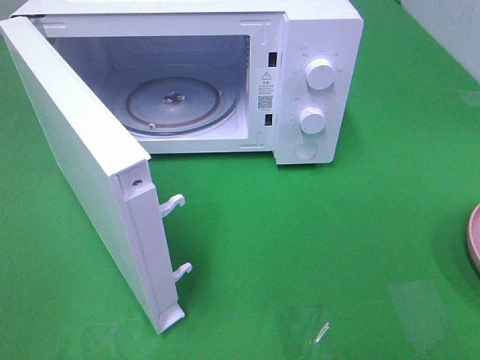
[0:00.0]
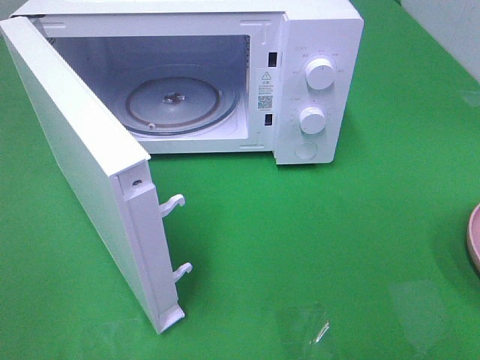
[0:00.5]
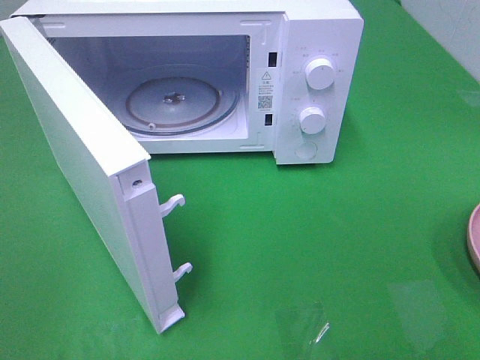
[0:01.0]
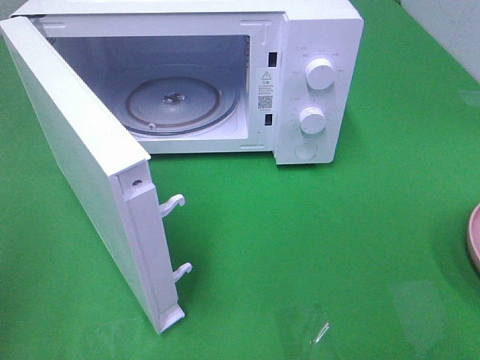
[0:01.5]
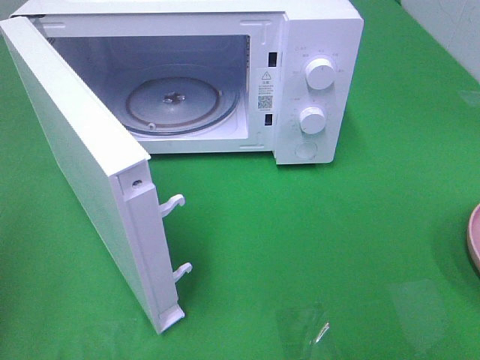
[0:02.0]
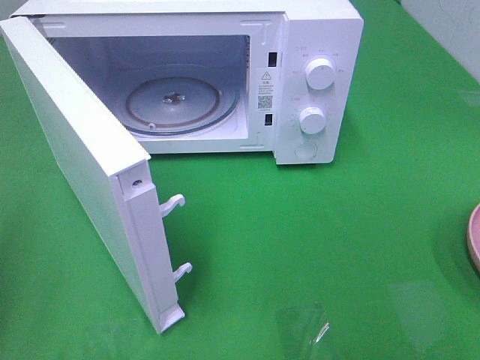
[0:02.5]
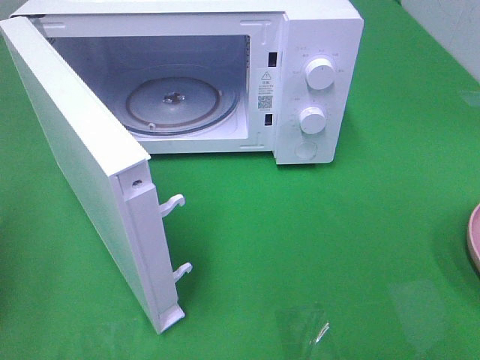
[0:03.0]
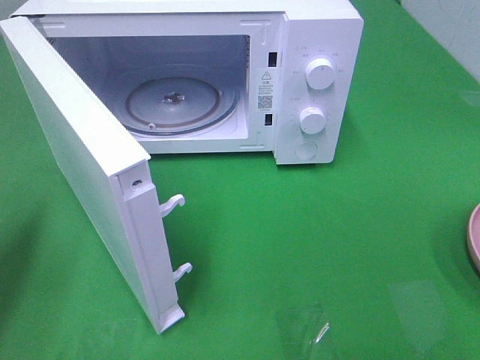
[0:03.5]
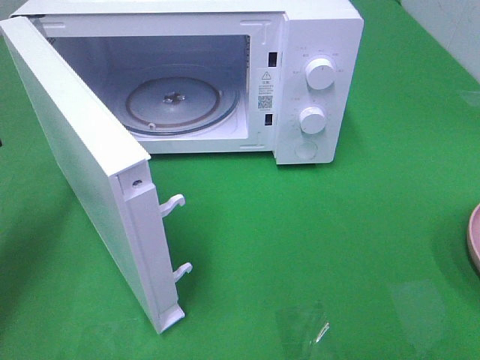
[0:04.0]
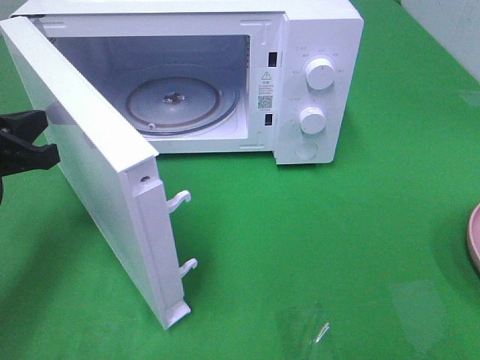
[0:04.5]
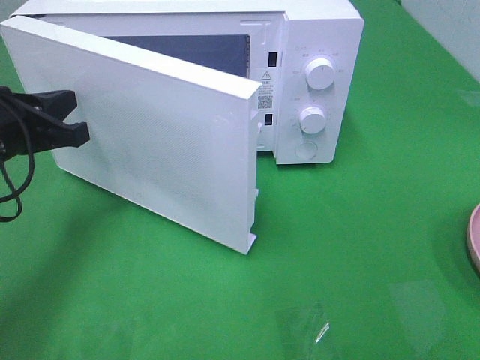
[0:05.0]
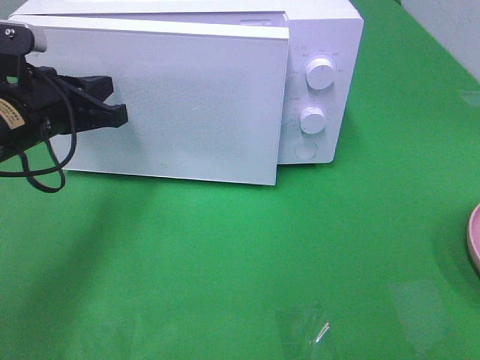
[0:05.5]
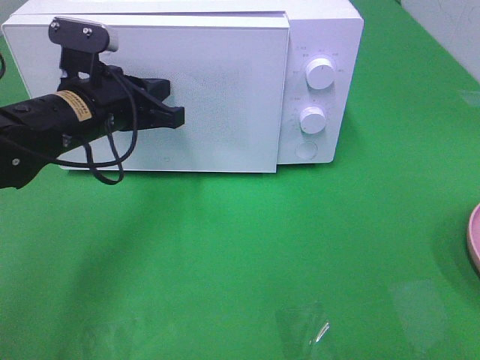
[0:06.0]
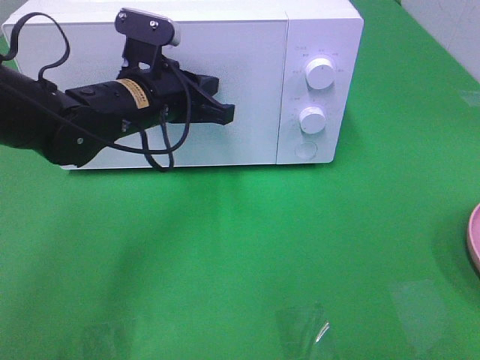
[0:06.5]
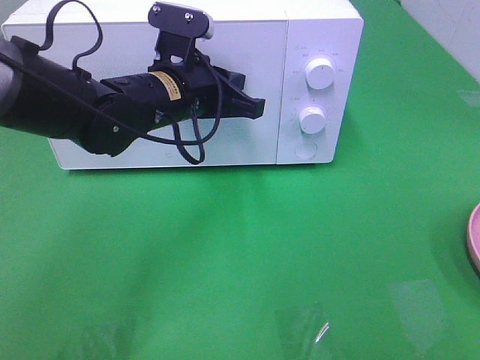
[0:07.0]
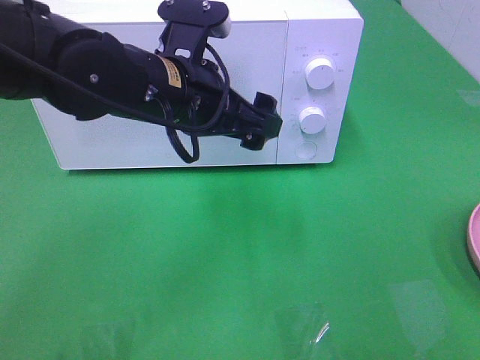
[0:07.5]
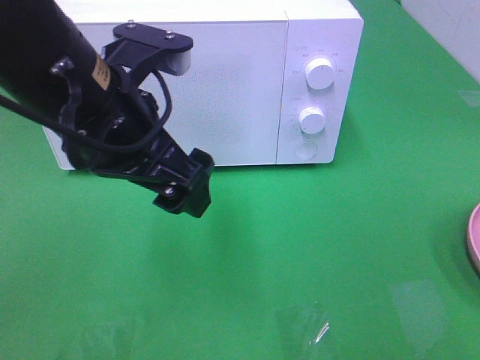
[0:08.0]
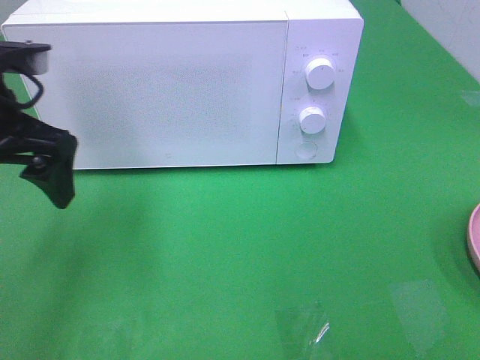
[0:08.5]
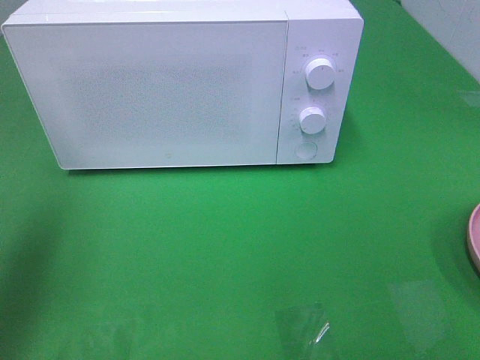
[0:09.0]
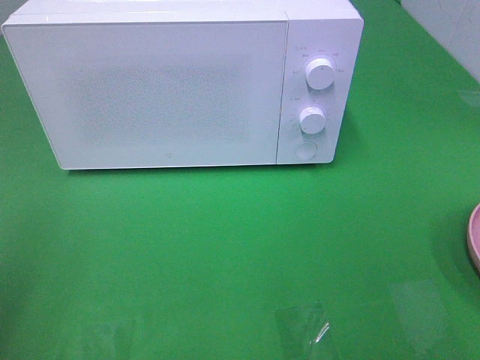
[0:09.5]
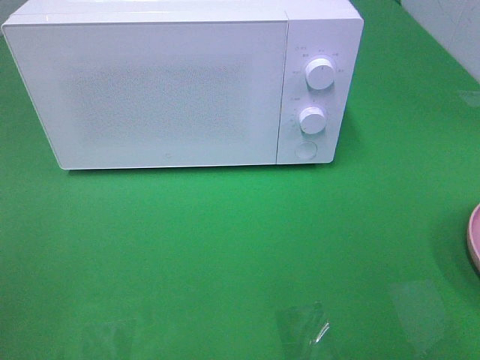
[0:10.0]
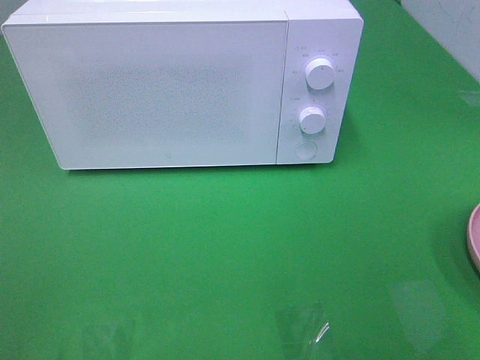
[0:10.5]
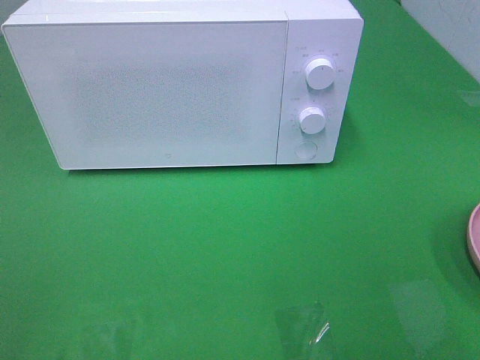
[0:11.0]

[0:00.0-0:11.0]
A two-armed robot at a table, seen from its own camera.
Task of the whole recording: Heat the burger.
Step, 0:00.0 to 0:07.0: Left hand: close the microwave door.
0:02.0 to 0:03.5: The left gripper shifts roughly 10 cm forward and downward.
0:03.5 to 0:05.5: The left gripper goes about 15 cm to the right and forward.
0:05.5 to 0:07.5: The left gripper is displaced to the right by approximately 15 cm, and opens.
0:07.5 to 0:09.0: The left gripper moves to the left, about 25 cm.
0:09.0 to 0:11.0: The left gripper shifts approximately 20 cm backward.

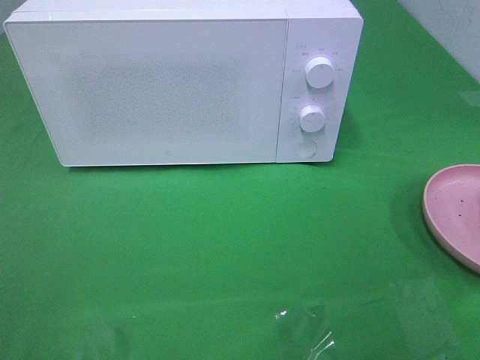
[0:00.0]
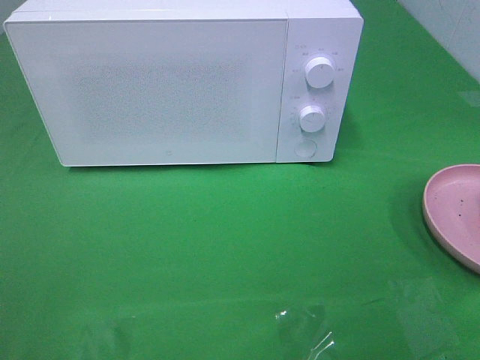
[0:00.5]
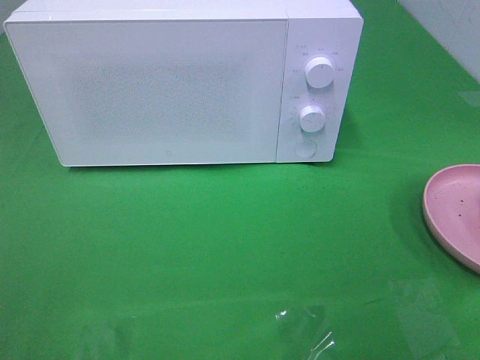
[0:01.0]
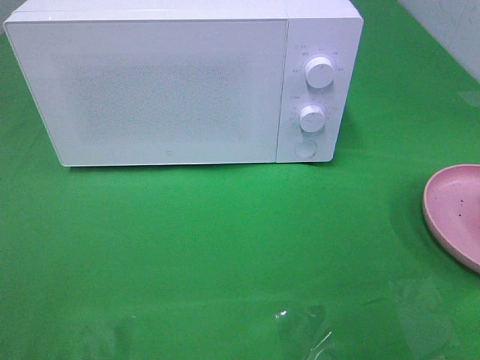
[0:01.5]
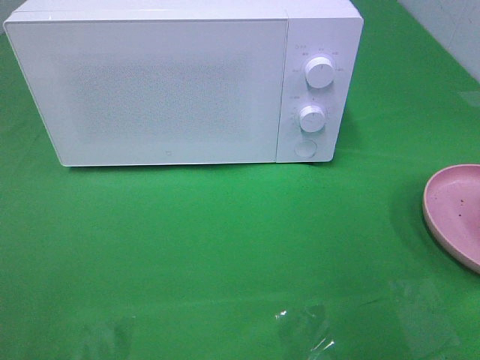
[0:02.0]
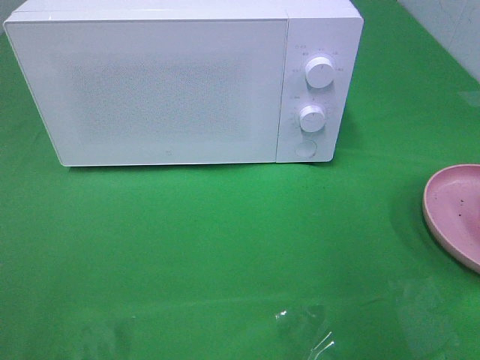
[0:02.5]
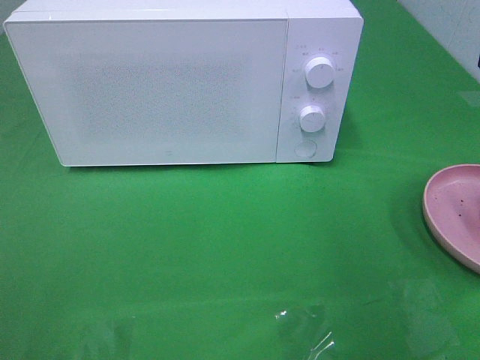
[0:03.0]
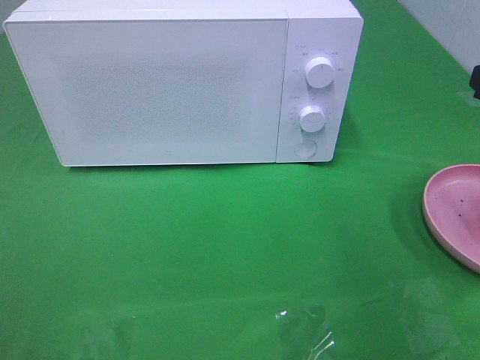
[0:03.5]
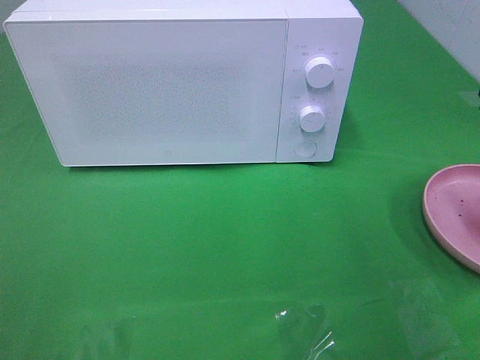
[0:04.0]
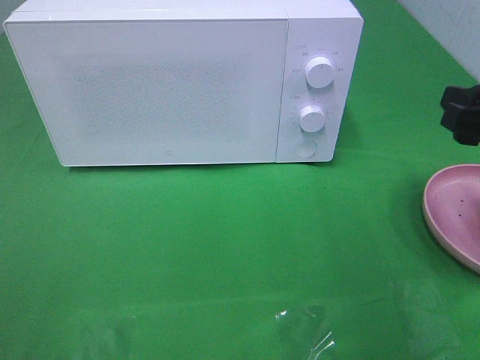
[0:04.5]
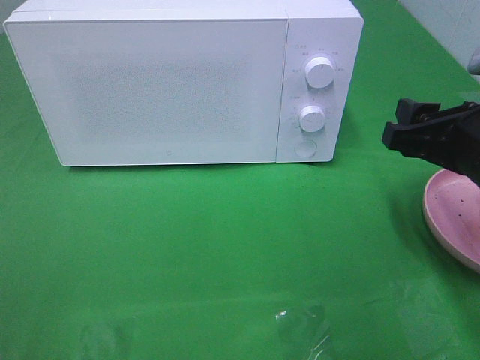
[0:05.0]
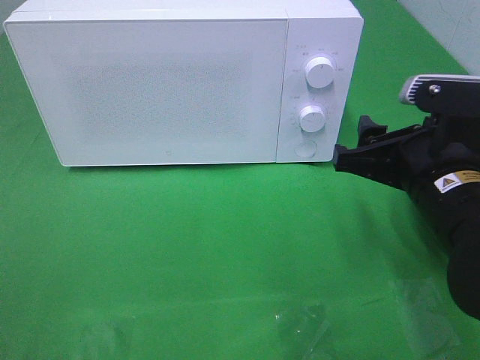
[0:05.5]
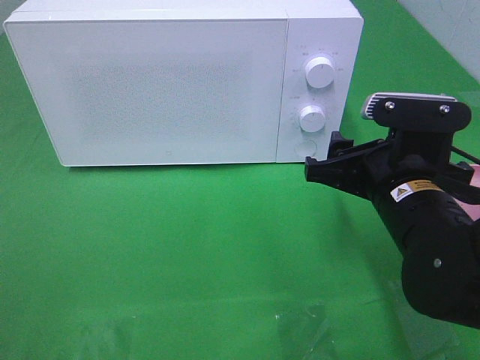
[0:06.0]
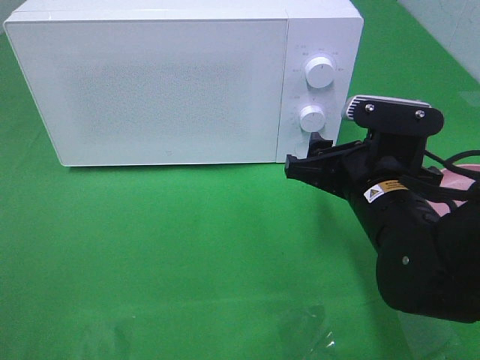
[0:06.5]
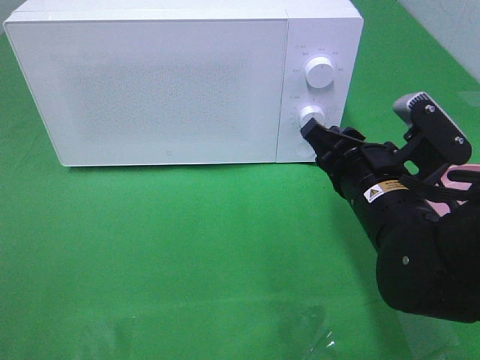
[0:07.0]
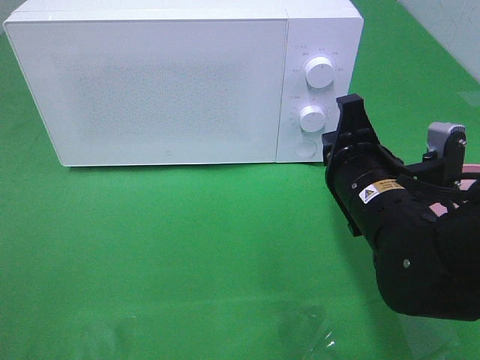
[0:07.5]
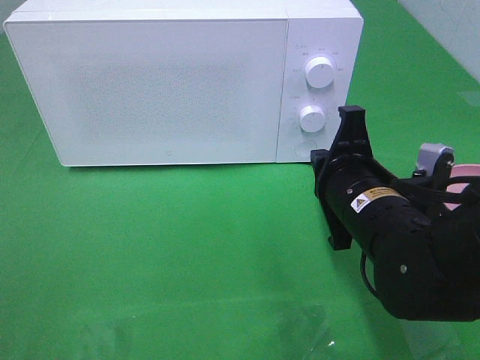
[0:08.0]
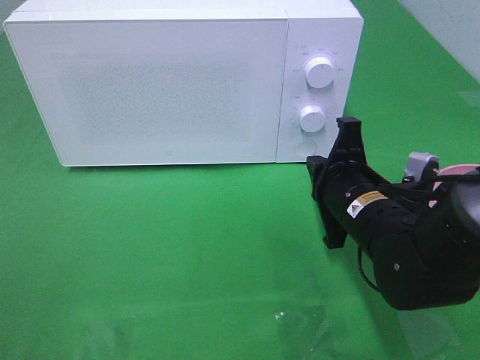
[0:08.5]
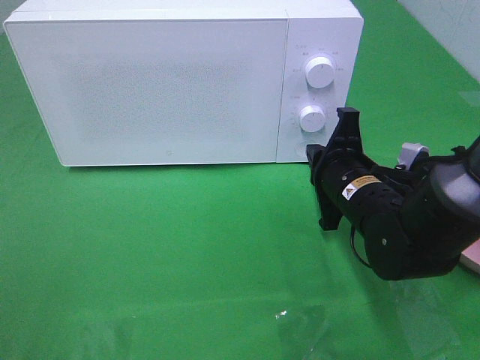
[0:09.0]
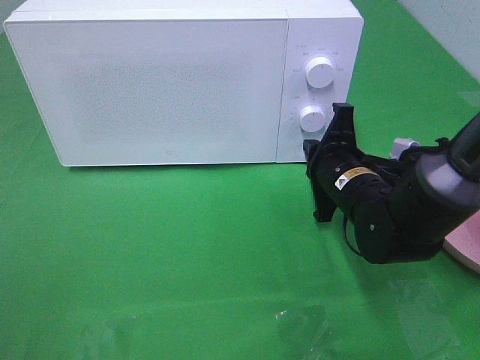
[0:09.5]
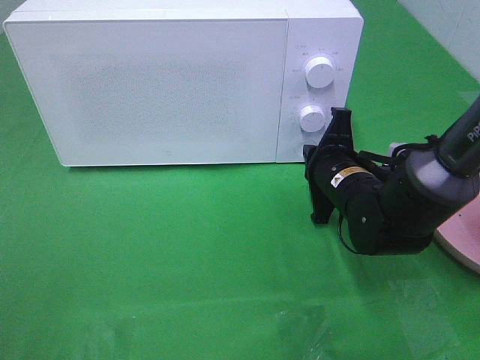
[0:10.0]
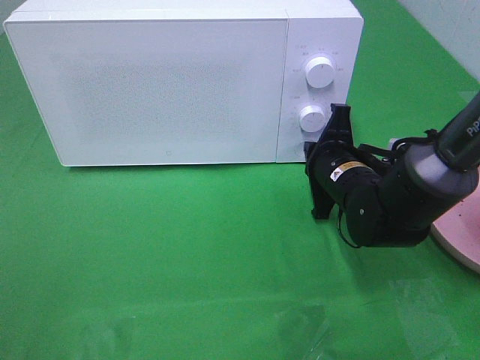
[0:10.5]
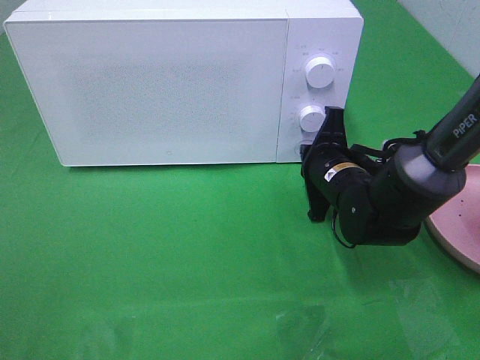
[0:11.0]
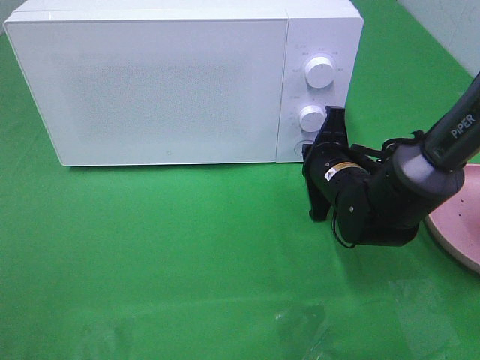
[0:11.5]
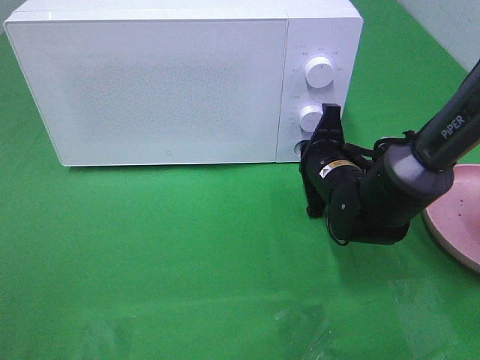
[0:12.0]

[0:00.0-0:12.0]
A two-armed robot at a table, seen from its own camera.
Task of the whole recording: Heat the burger.
0:04.0 to 0:06.0: The right gripper goes some 15 cm to the left and downward.
0:06.0 to 0:08.0: The right gripper closes its fingers.
0:08.0 to 0:10.0: The right gripper heads forward and downward, covering some 10 cm.
0:10.0 to 0:12.0: The grippers stay close to where they were, moving slightly.

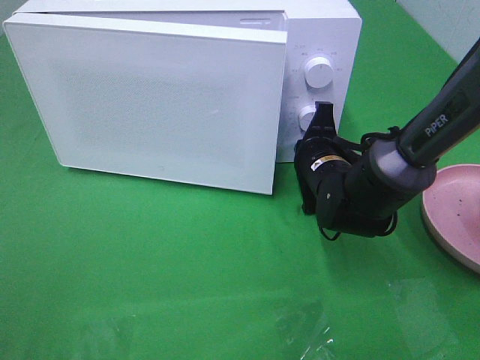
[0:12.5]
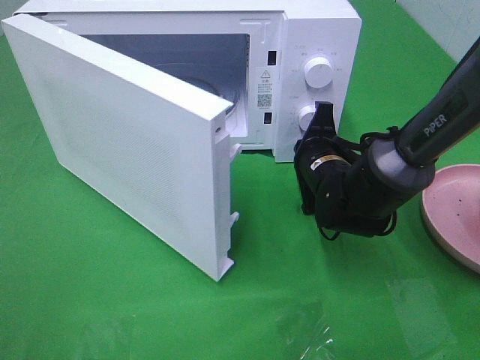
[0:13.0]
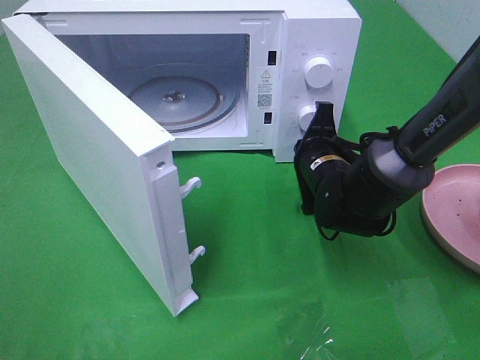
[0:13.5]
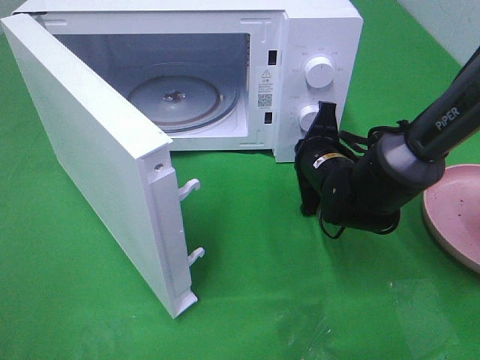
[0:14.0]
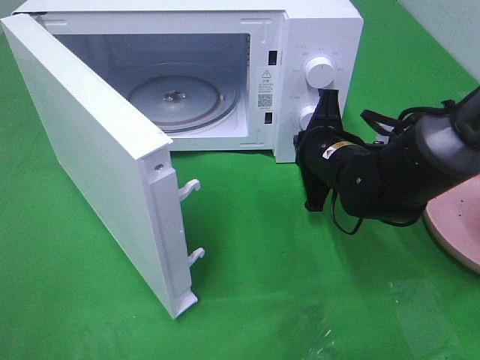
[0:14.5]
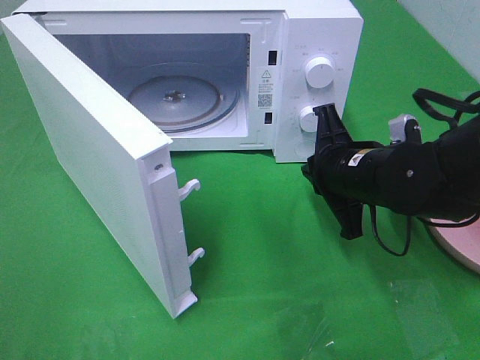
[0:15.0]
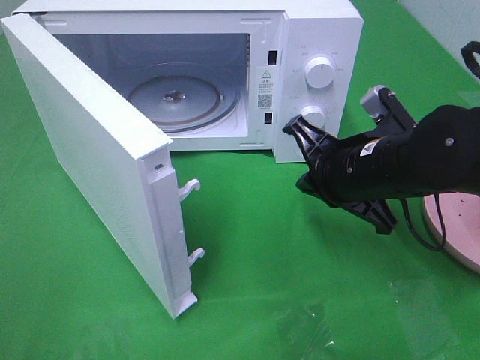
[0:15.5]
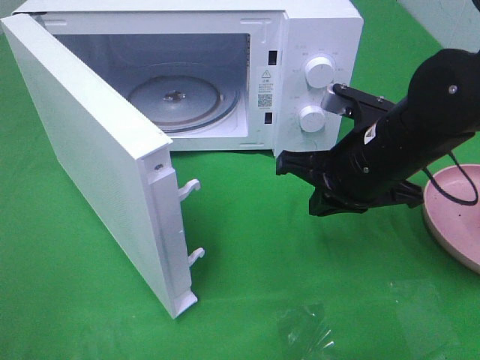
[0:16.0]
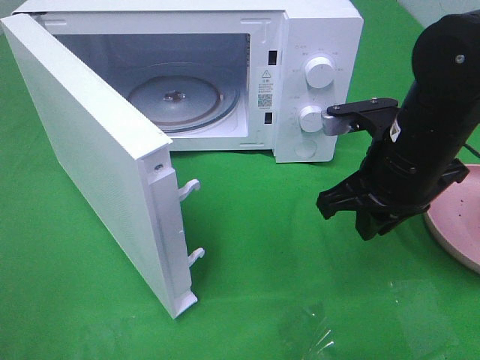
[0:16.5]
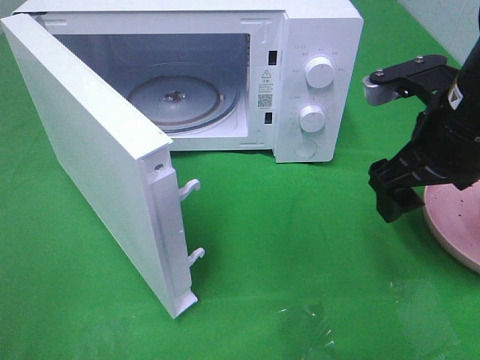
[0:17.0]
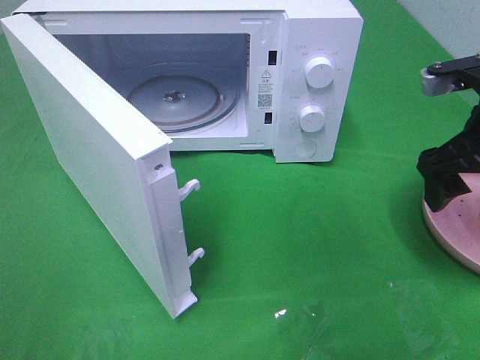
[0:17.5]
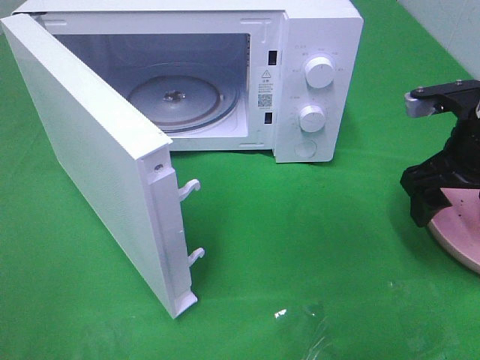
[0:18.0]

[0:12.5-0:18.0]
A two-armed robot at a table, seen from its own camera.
Task of the whole recording: Heat the burger.
Step, 0:12.5 to 0:14.5: Right hand: press the switch.
0:14.5 to 0:16.0: The right gripper moves upward and backward, approximately 10 cm.
0:16.0 to 0:18.0: The right gripper travels to the right by roughly 10 cm, and opens.
